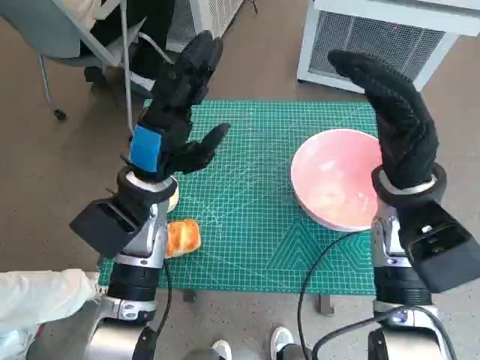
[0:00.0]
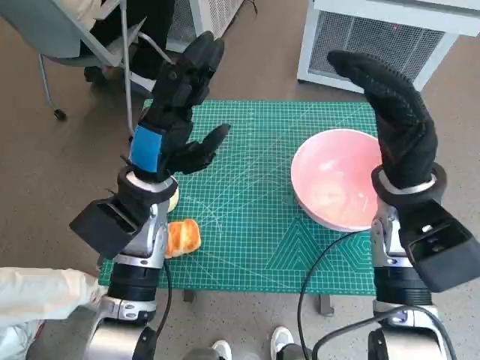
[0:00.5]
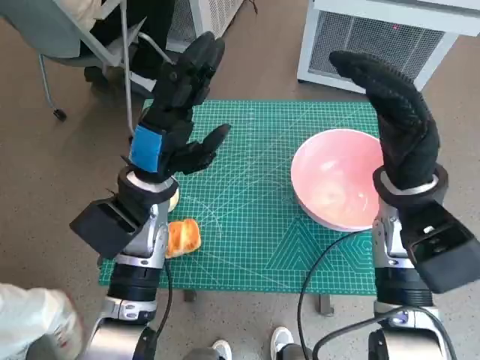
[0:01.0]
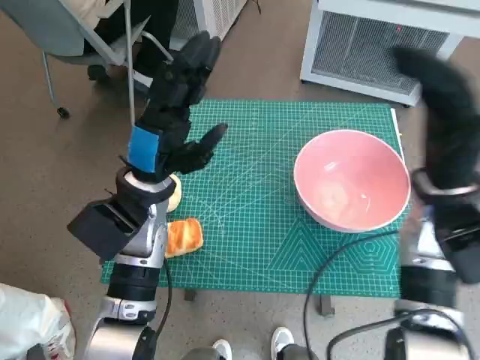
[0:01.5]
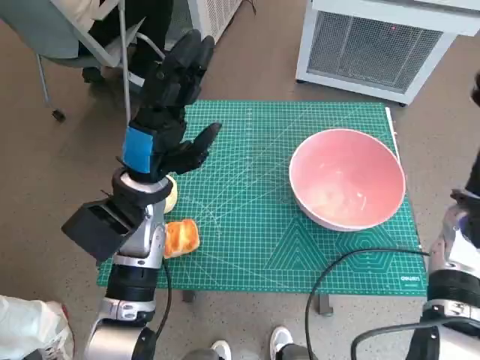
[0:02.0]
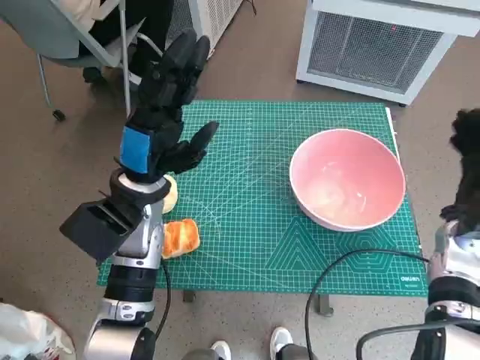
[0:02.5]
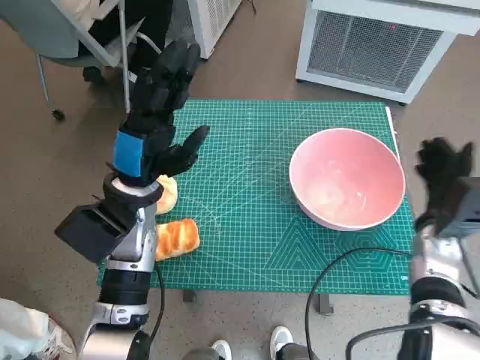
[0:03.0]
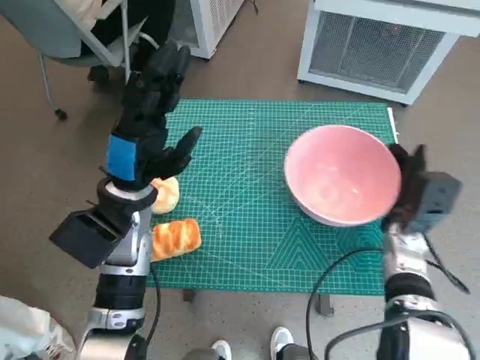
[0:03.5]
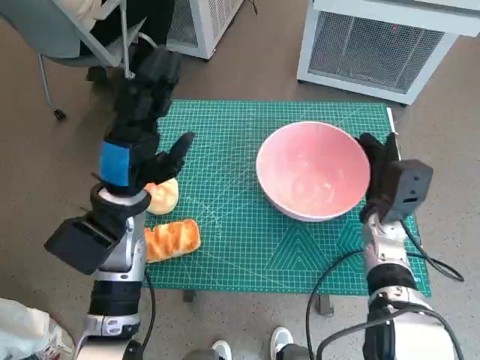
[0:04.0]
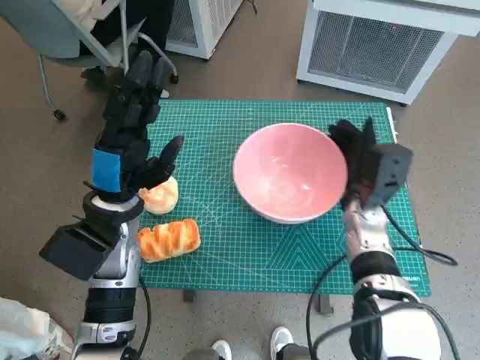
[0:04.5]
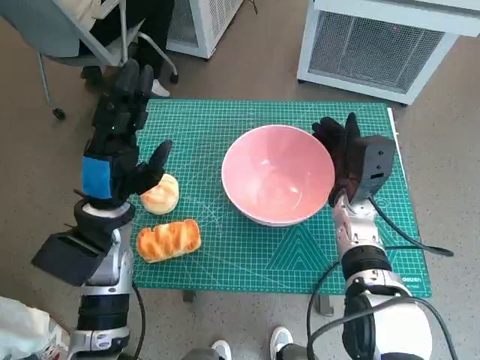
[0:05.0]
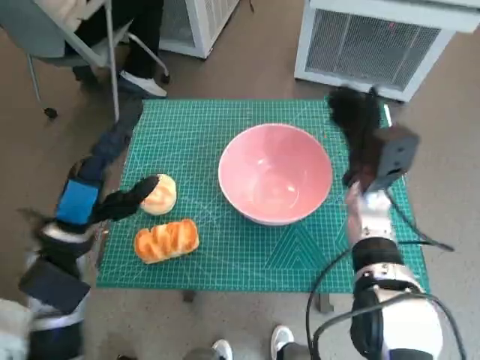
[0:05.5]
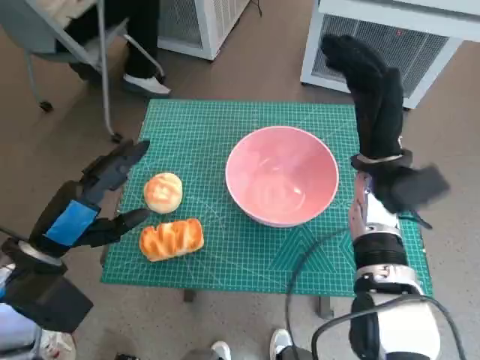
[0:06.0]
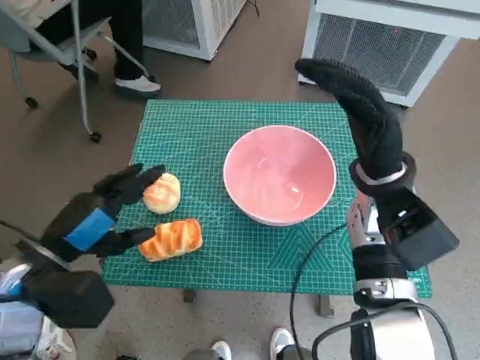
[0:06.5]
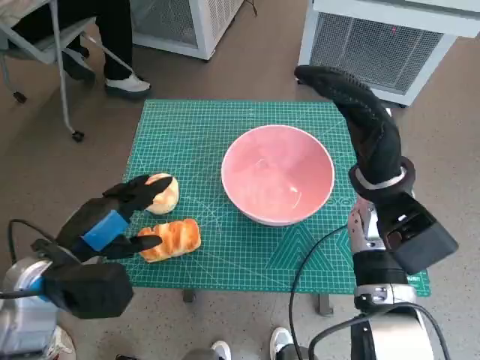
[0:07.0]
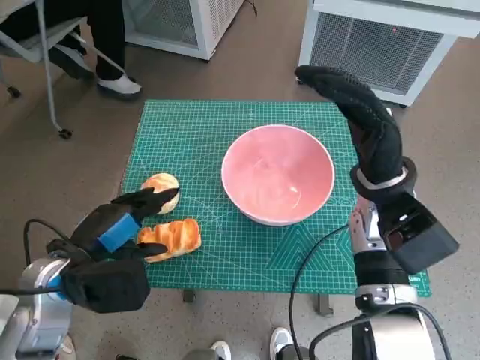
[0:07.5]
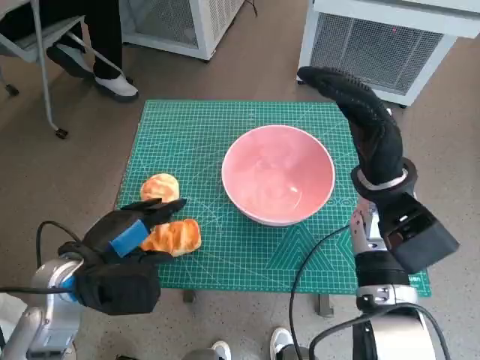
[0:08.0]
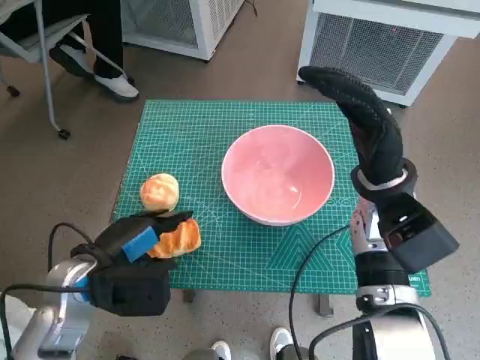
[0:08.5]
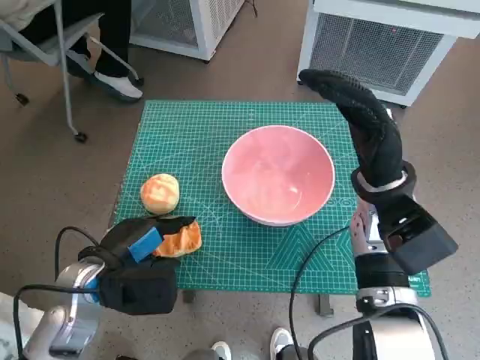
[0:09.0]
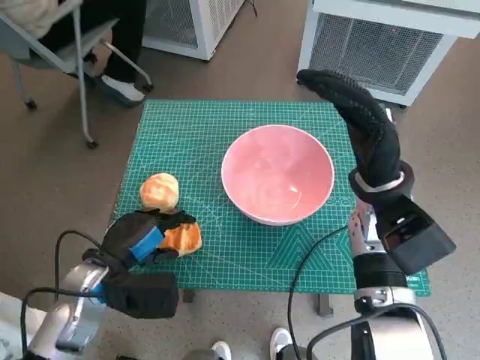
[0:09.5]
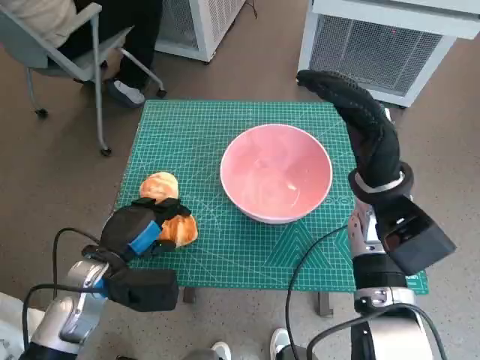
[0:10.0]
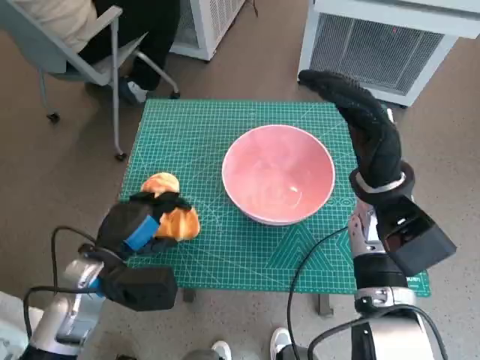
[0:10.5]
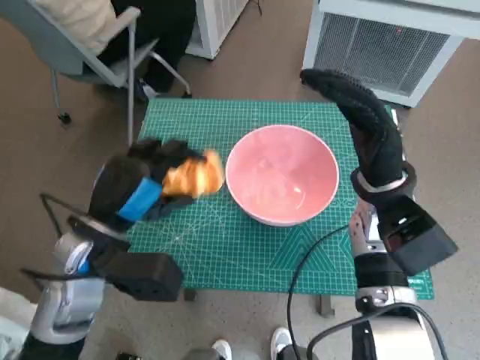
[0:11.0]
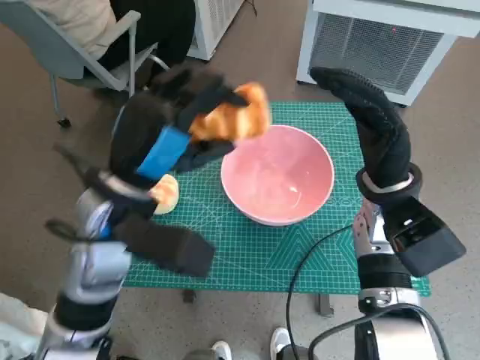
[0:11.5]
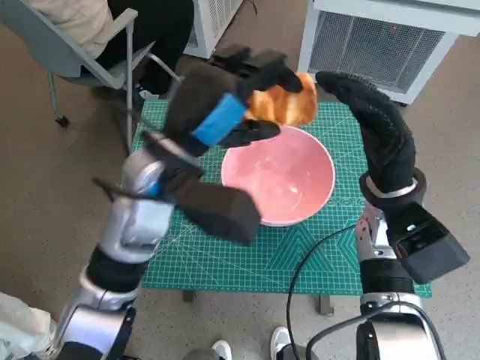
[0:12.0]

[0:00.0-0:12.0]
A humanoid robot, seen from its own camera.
Task of the whole recording: Push the bowl to the center of the table and put the bread into the bowl.
Step, 0:00.0 to 0:05.0: Move the pink bowl to the center of table with right hand.
Step, 0:06.0 to 0:09.5: Grasp the long bread with left hand.
0:02.0 to 0:04.0: The right hand is displaced downward and to the left by some 10 cm.
0:04.0 to 0:06.0: The right hand shifts some 10 cm upward. The left hand travels backward and to the left by about 10 cm.
0:08.0 to 0:10.0: The left hand travels downward by approximately 5 cm.
0:10.0 to 0:12.0: The left hand is displaced upward, to the right and forward by roughly 20 cm.

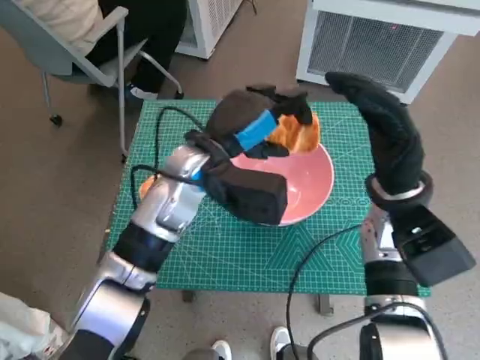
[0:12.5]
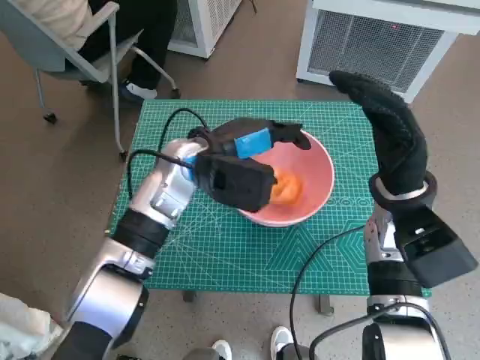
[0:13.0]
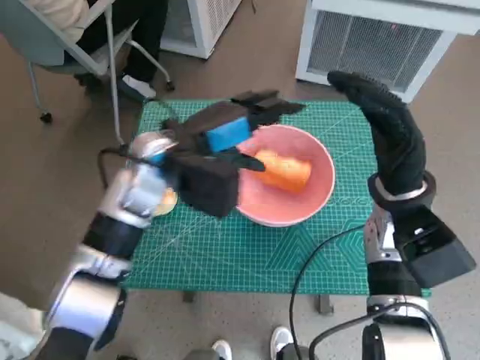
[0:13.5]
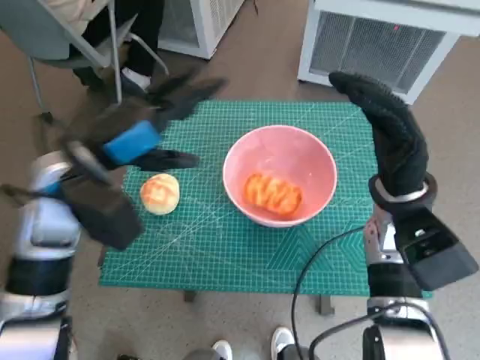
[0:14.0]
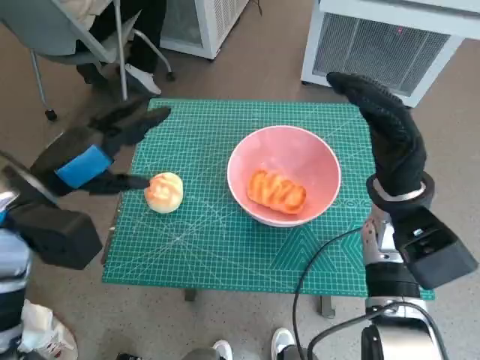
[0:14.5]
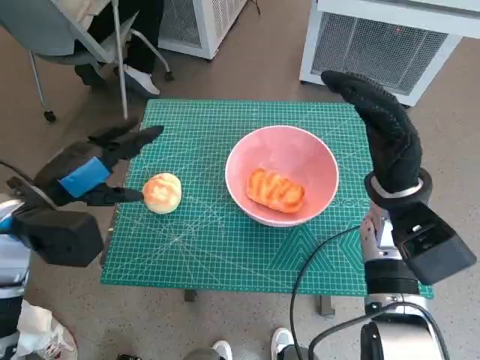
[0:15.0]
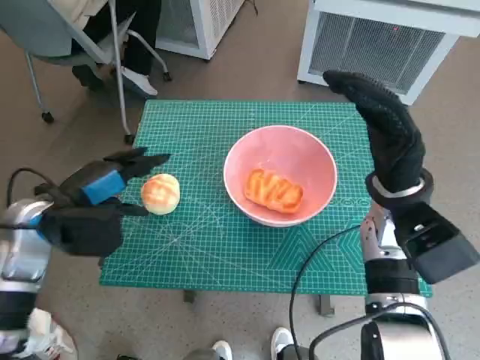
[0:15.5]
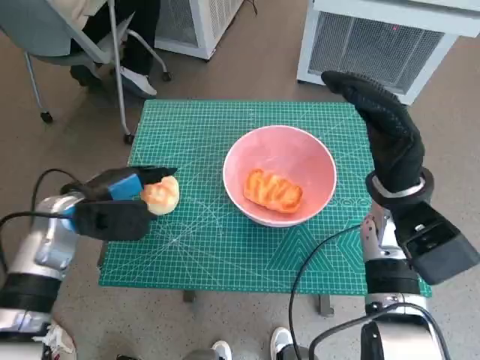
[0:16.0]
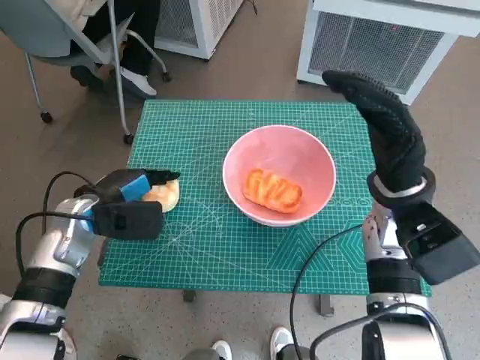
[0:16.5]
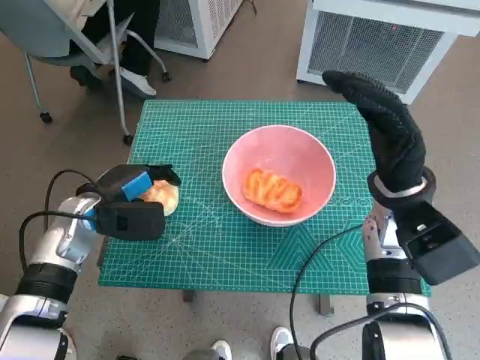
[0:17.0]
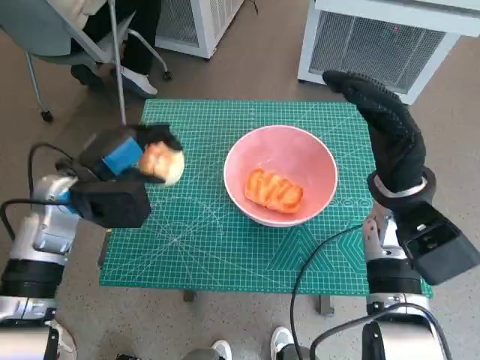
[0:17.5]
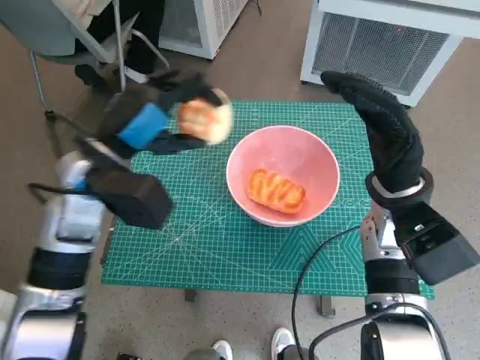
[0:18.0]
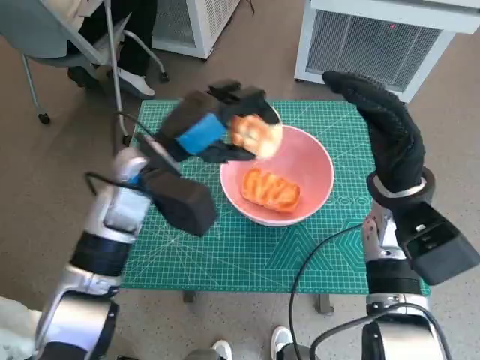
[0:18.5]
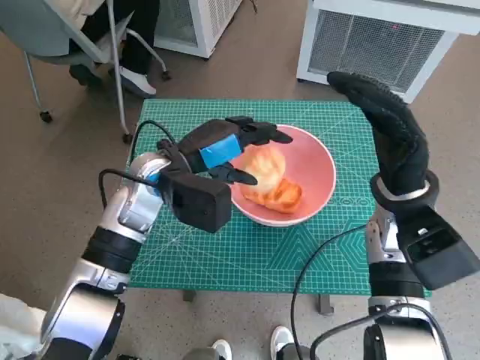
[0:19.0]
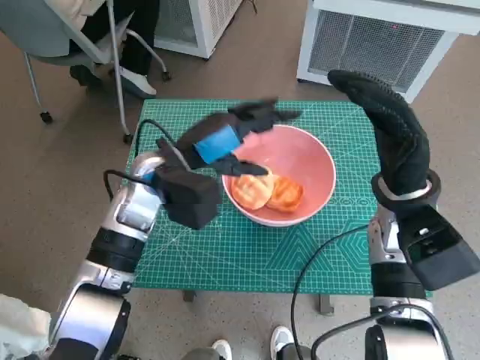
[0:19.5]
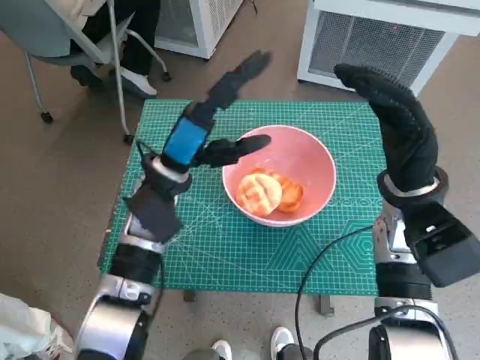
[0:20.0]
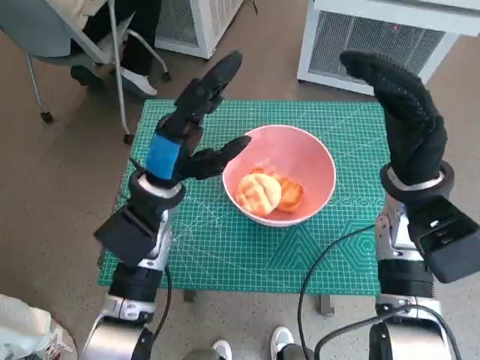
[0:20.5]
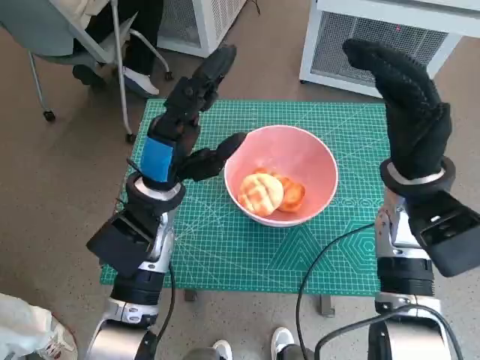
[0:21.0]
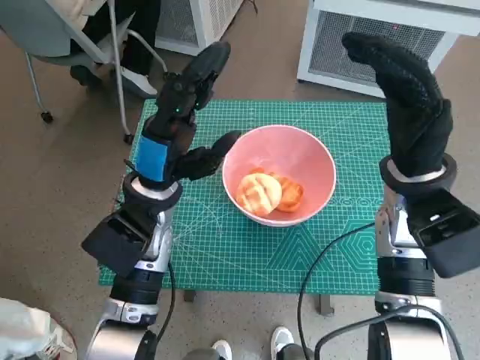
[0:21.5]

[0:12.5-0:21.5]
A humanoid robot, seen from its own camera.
Task of the whole recording: Push the bowl to the center of the table and put the bread into the bowl.
Step, 0:13.5 to 0:16.5: Grasp the round bread with left hand.
Step, 0:17.0 to 0:19.5: Place the round bread in pink bowl with left hand.
0:12.5 to 0:14.5: The left hand travels to the left by some 20 cm.
0:14.5 to 0:17.0: The left hand is displaced downward by about 10 cm.
0:17.0 to 0:19.5: The left hand shifts some 15 cm to the right and upward.

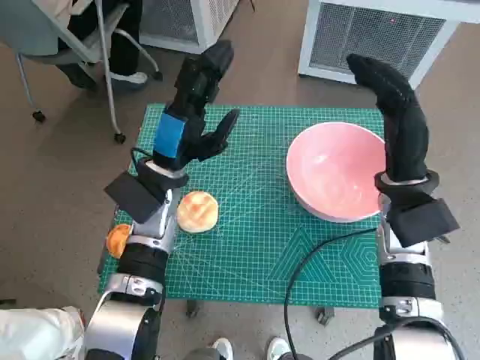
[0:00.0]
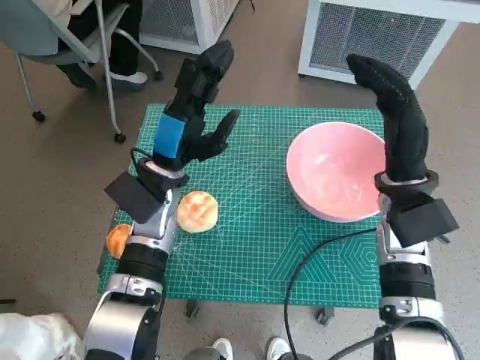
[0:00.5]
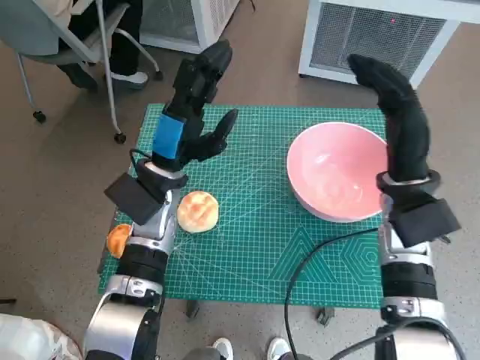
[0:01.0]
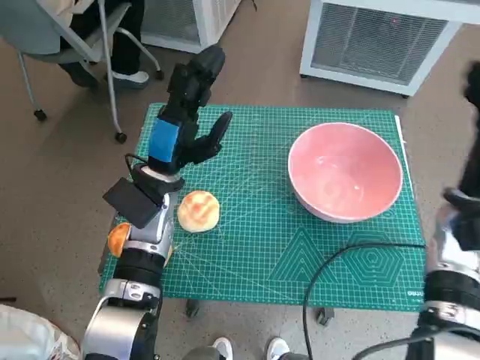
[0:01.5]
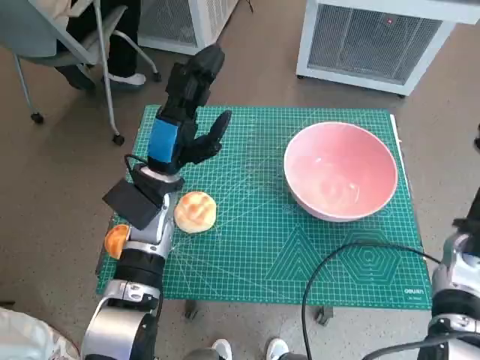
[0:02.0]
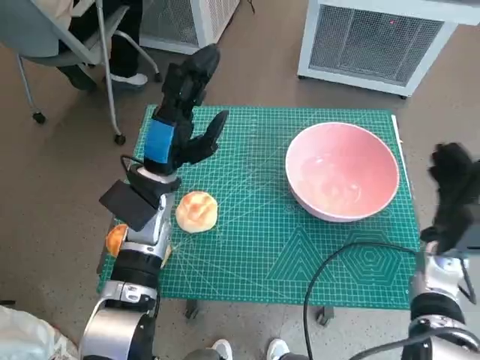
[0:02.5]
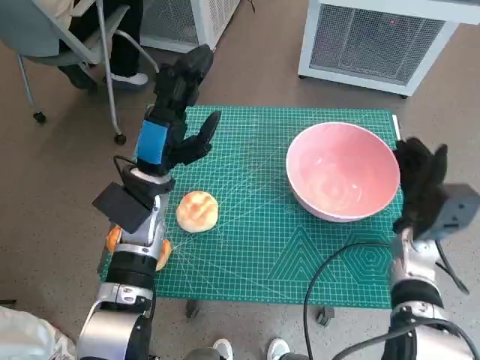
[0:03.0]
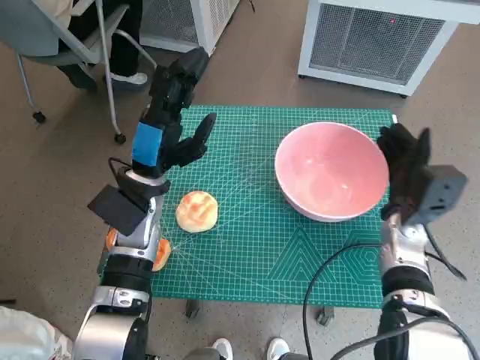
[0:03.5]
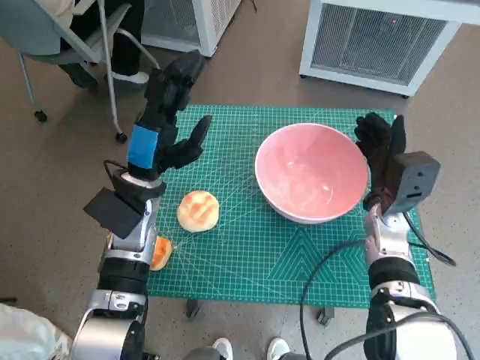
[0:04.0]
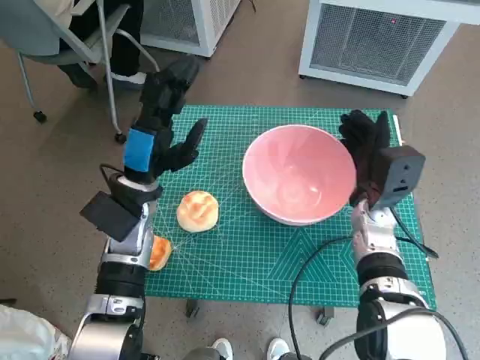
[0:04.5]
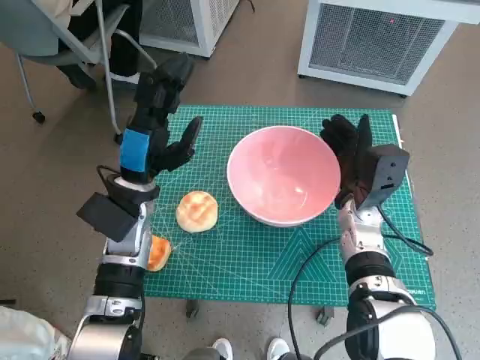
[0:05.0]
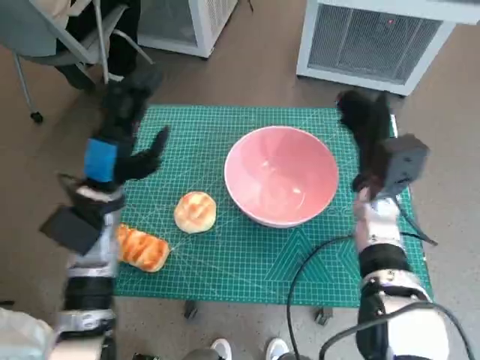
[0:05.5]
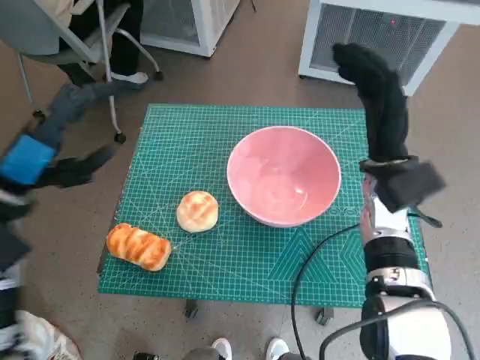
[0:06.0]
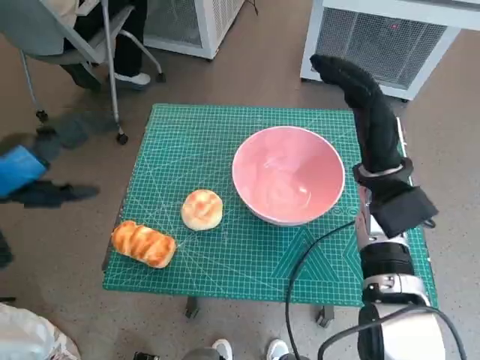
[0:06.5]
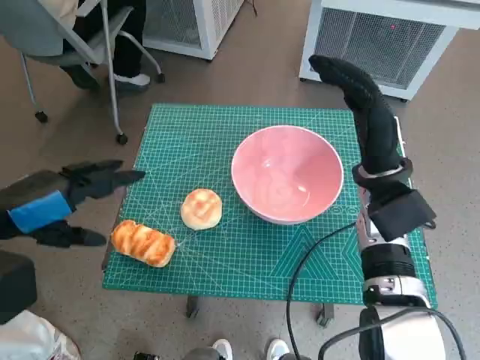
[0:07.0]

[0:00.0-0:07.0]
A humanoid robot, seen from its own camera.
Task of the whole recording: Push the bowl to the center of the table and put the bread into the bowl.
Step, 0:00.0 to 0:05.5: Move the pink bowl to the center of table with right hand.
0:02.0 to 0:03.5: The right hand shifts some 5 cm to the left.
0:03.5 to 0:05.0: The right hand shifts roughly 5 cm to the left.
0:05.0 to 0:07.0: The left hand moves to the left, backward and upward, approximately 20 cm. The right hand goes about 10 cm upward.
